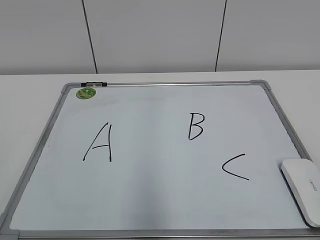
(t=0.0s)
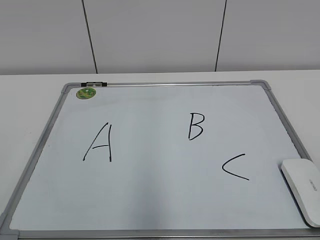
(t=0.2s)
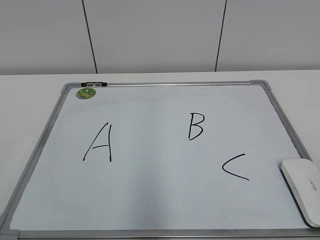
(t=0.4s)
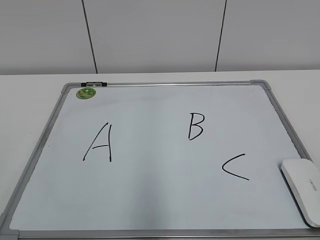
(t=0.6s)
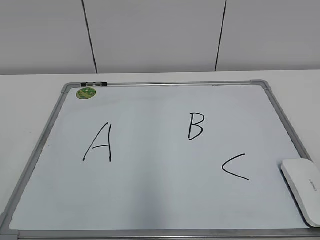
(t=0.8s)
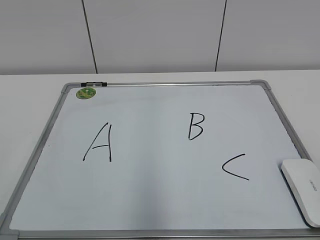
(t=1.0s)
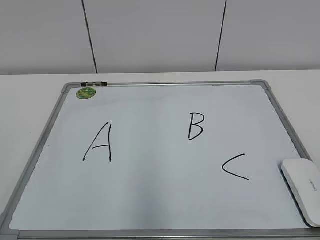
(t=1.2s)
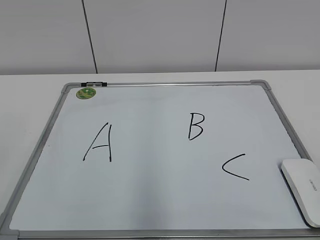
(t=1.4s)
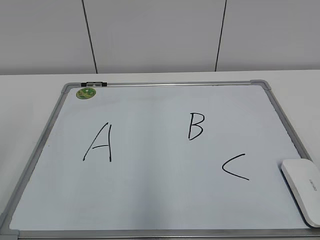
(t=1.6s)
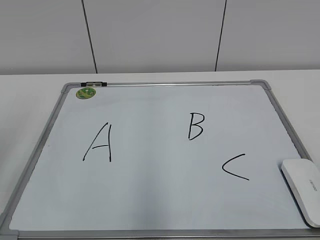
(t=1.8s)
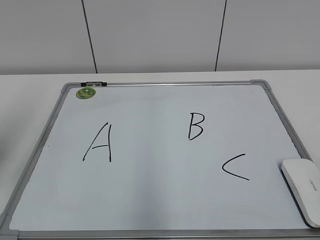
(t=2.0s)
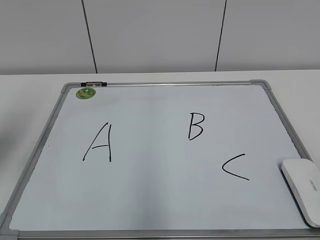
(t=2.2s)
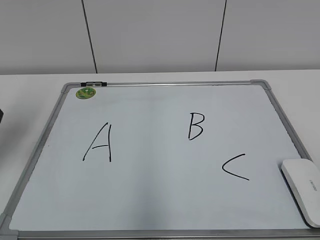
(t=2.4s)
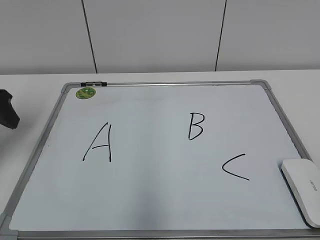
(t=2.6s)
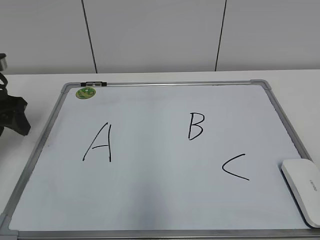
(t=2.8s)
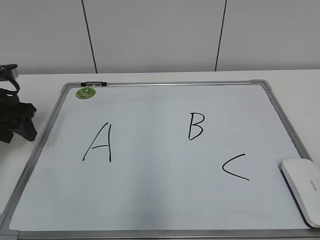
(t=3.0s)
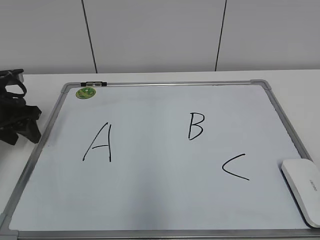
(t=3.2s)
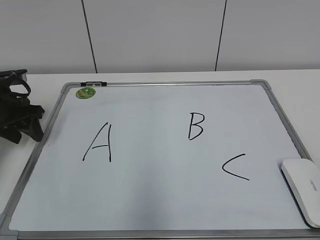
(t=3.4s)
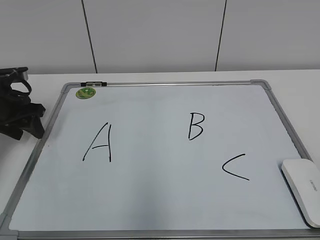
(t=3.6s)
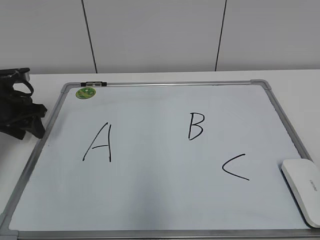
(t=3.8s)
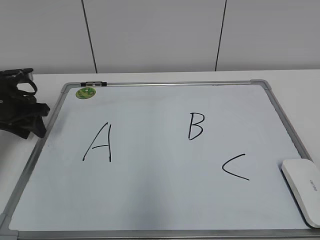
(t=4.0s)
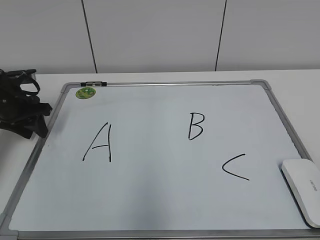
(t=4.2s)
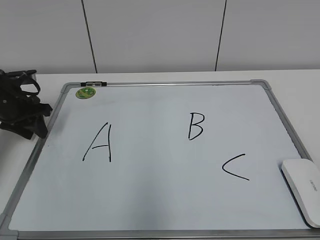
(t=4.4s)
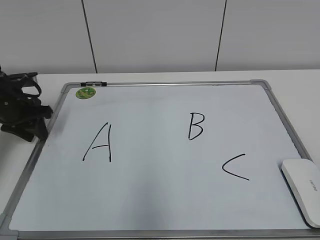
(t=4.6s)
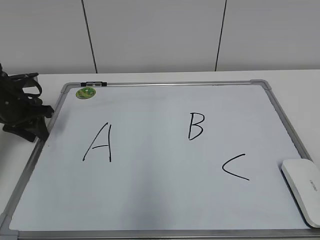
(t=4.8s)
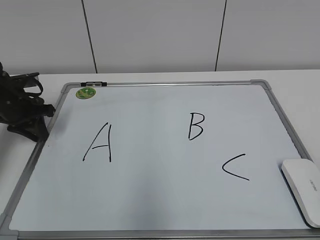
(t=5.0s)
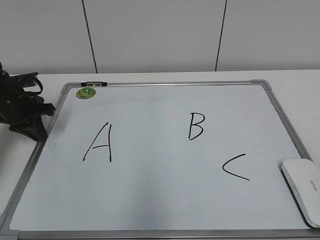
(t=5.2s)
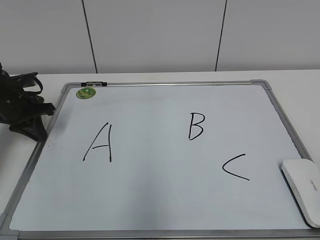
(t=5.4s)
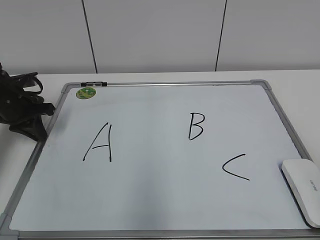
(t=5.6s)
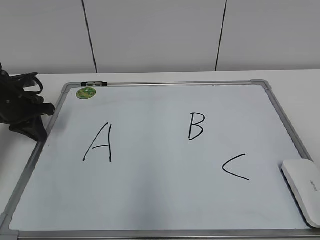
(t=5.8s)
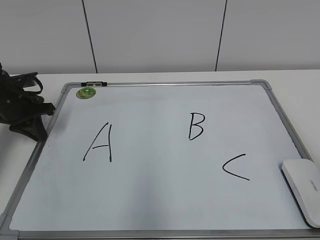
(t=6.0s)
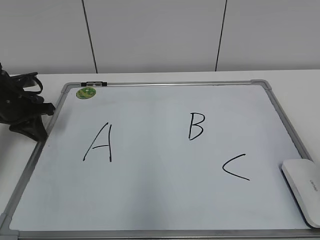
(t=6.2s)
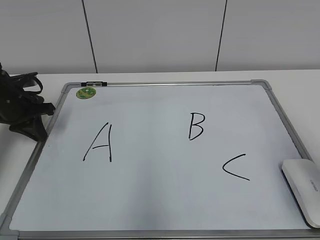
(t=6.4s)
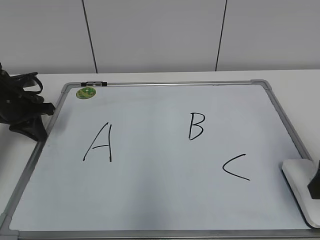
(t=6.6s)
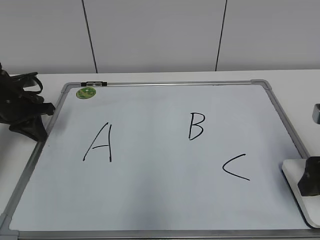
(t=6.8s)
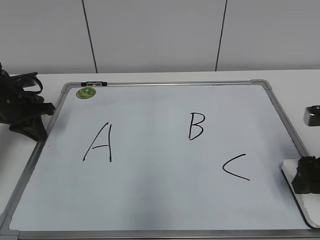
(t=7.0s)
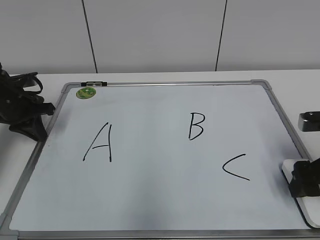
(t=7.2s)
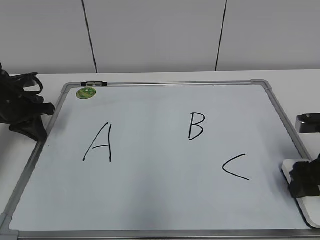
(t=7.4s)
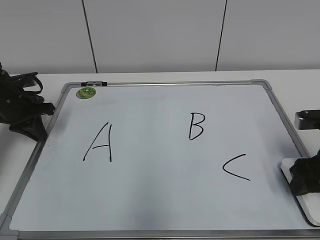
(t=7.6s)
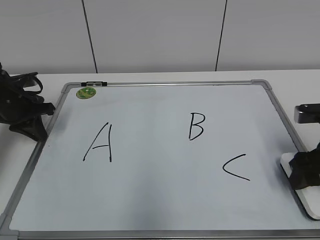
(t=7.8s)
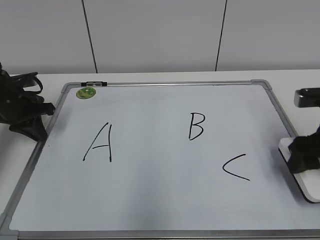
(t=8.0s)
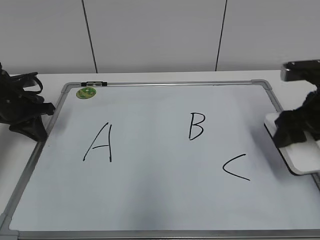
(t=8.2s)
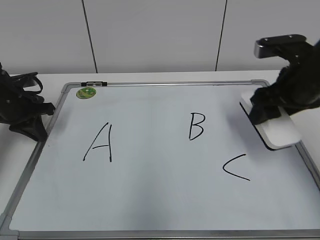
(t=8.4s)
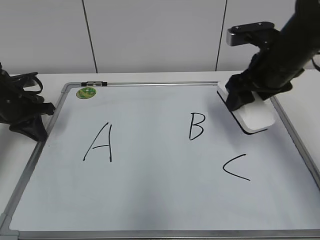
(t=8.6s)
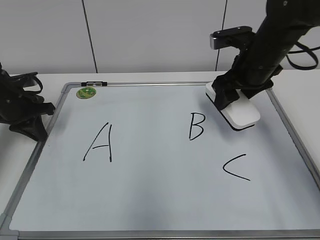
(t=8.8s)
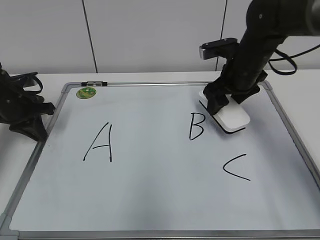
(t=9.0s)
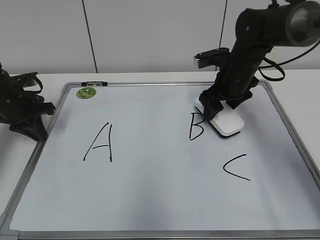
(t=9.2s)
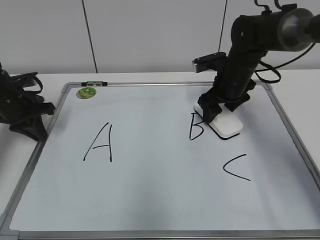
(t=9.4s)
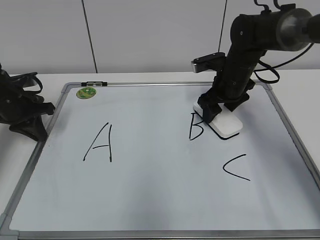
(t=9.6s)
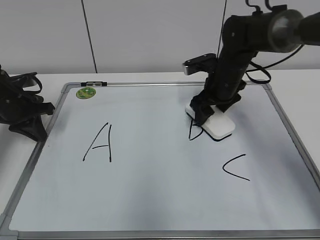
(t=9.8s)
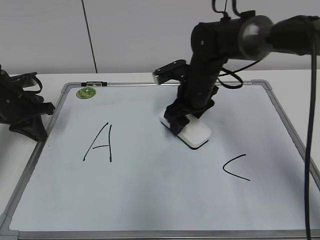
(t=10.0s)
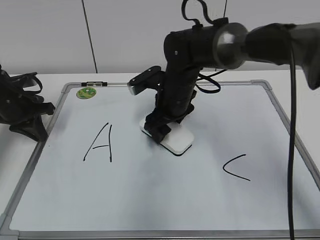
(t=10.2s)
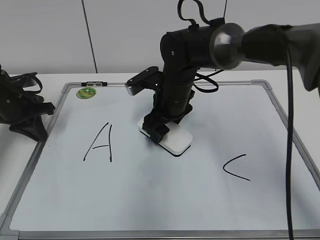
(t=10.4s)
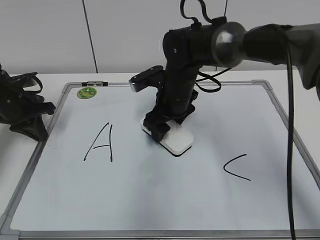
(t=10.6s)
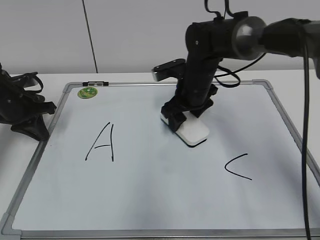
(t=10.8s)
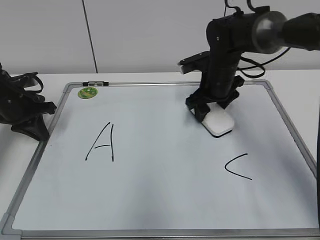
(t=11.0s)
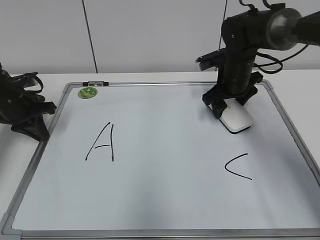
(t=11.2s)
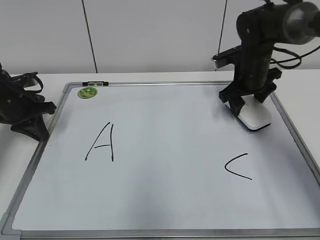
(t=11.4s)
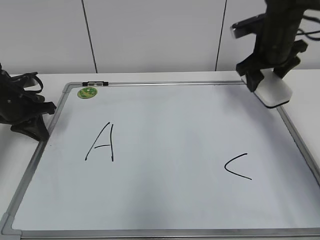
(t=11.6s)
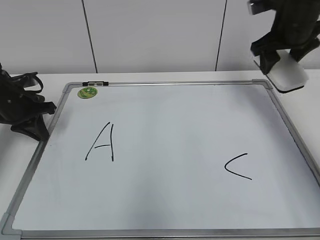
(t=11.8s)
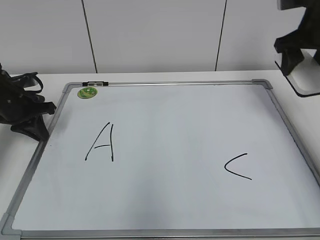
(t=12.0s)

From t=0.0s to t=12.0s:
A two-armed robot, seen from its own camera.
Task of the whole recording: pick up the eraser on the blackboard and erase the letter "B".
Step, from t=0.0s to t=5.0s: Hold the drawing board steady with your left hand.
Step, from t=5.2s to t=7.4s: Grab the eraser with your right hand.
Step, from t=7.6s to t=11.2s: Erase the letter B with your right hand.
From t=1.6s to t=3.0s: The left gripper travels forward and downward by roughly 30 cm.
From t=3.0s to t=4.4s: The left gripper changes place by about 5 cm.
From t=4.4s to t=6.0s: The left gripper closes up.
From t=6.0s to t=7.6s: The right gripper is displaced forward and downward by approximately 20 cm, and closes its fingers.
From t=7.6s to t=9.0s: The right gripper moves forward and to the left, roughly 20 cm.
From t=9.0s to t=10.4s: The right gripper travels to the left by about 15 cm.
From t=10.4s to t=12.0s: The right gripper travels to the right and upward by roughly 30 cm.

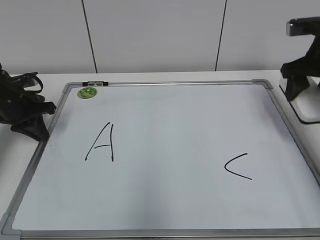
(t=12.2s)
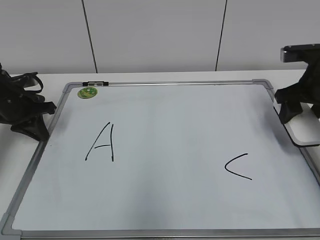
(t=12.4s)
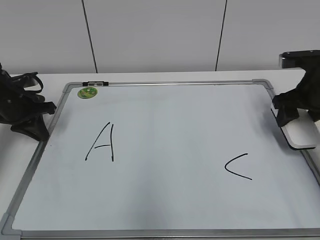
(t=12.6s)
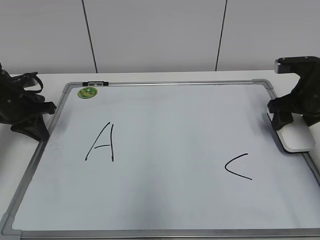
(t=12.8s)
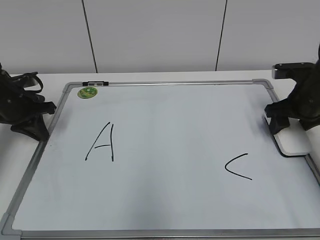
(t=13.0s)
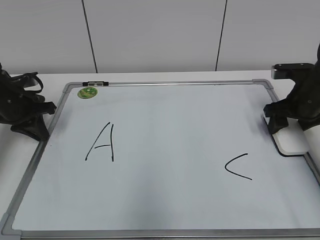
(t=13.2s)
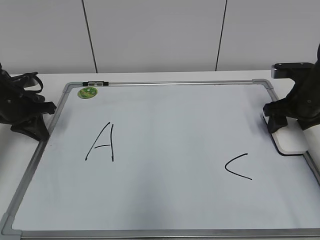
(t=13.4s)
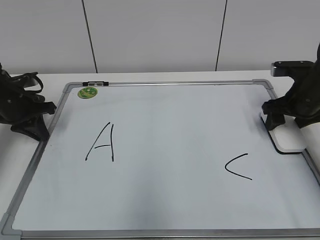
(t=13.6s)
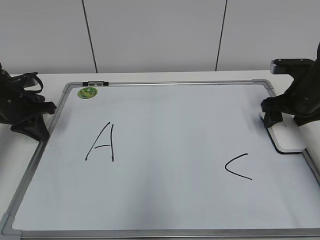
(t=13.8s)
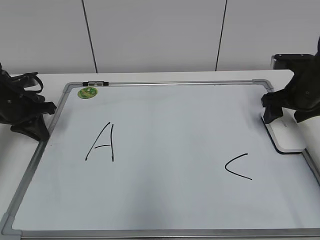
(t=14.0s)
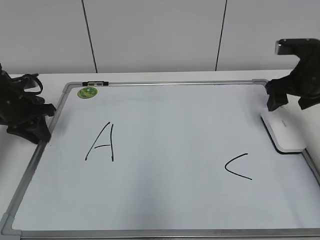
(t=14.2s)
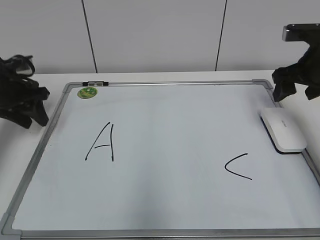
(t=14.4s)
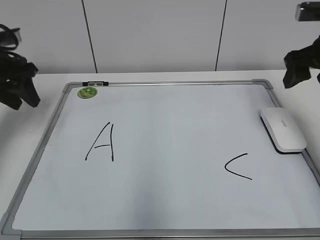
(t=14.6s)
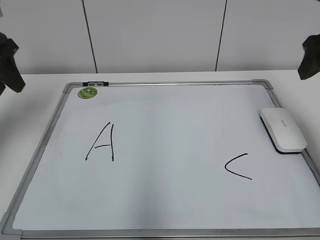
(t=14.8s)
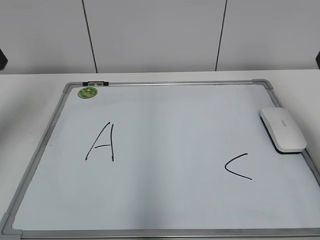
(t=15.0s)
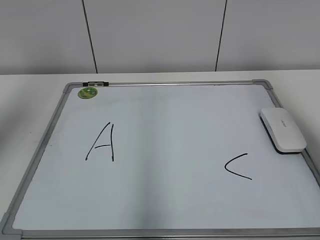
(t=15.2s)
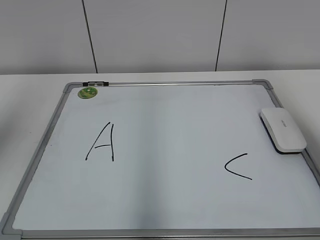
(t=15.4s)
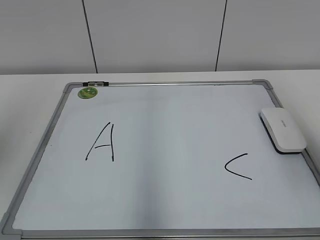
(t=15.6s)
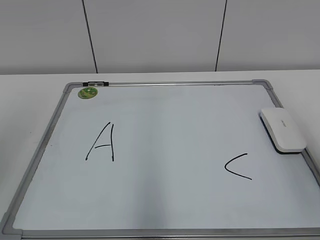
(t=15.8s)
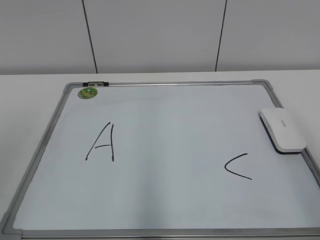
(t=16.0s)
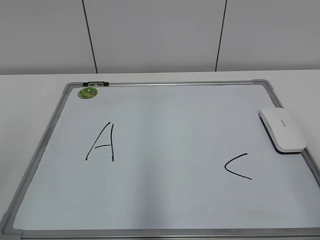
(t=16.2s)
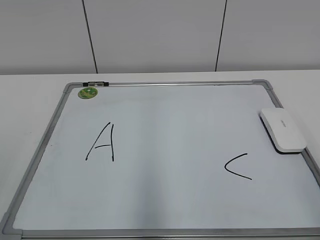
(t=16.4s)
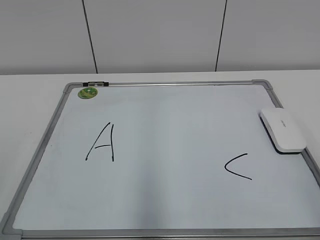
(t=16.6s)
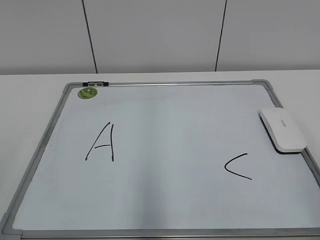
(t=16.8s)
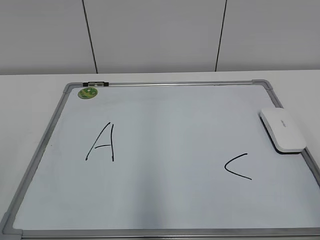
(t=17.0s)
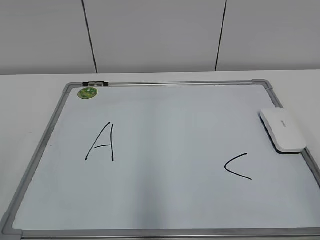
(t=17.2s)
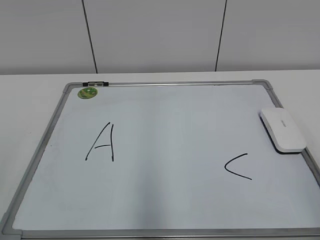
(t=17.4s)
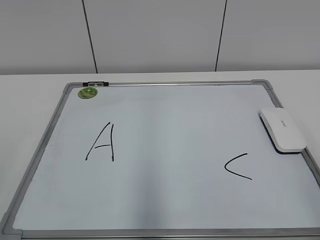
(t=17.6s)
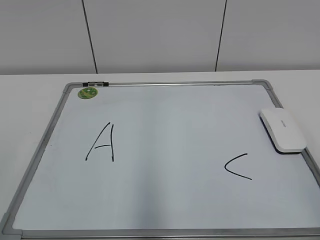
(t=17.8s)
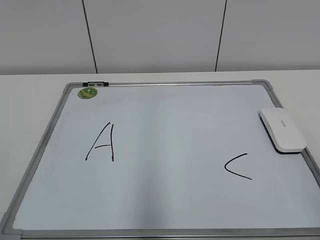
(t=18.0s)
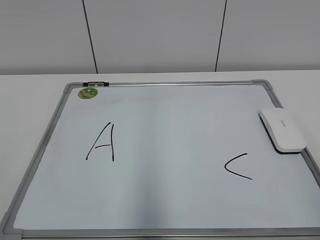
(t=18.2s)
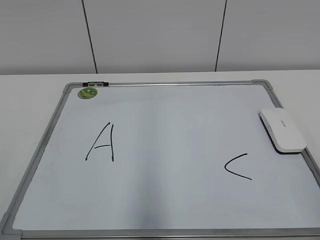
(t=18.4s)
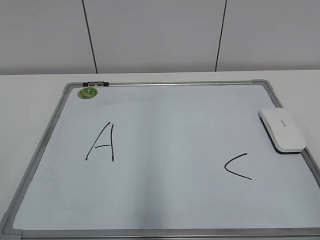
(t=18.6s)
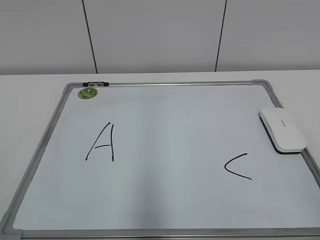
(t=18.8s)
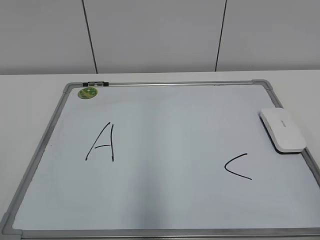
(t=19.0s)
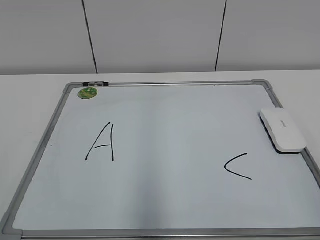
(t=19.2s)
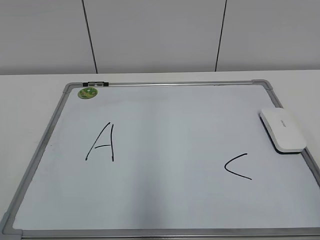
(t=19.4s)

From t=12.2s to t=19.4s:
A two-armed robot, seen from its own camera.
Task of the whole recording: pick up the eraser on the blackboard and erase the letter "B".
Step, from t=12.2s to t=13.6s: Put down the eraser with your right hand.
From t=12.2s to t=13.6s: The right gripper moves downward, about 10 cm, and opens.
From t=13.6s to t=15.0s: The left gripper heads upward, covering some 25 cm, and opens its fingers, while the right gripper goes approximately 20 cm upward and backward.
From t=15.0s to t=16.6s: The two grippers go roughly 25 cm backward.
From t=18.0s to t=19.4s: Neither gripper changes place.
